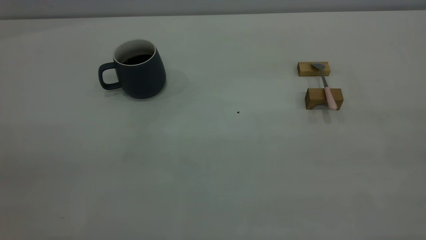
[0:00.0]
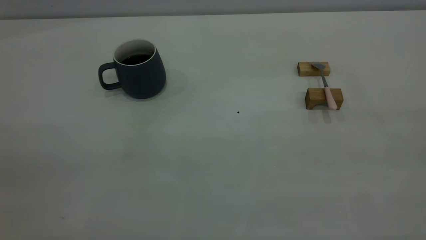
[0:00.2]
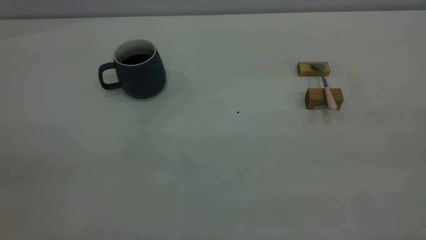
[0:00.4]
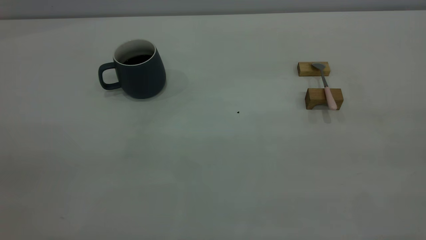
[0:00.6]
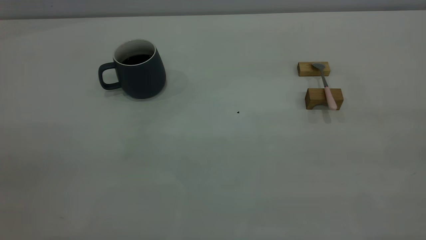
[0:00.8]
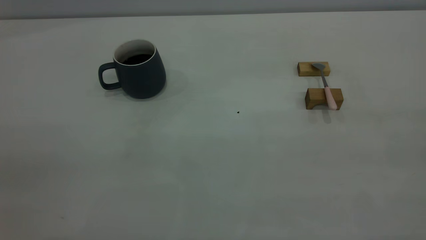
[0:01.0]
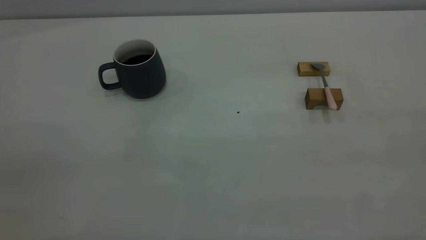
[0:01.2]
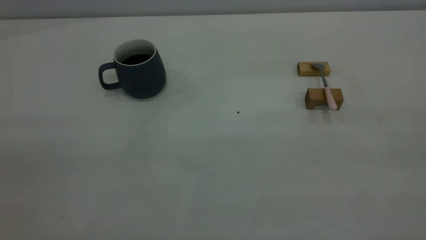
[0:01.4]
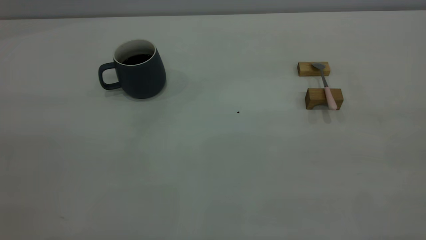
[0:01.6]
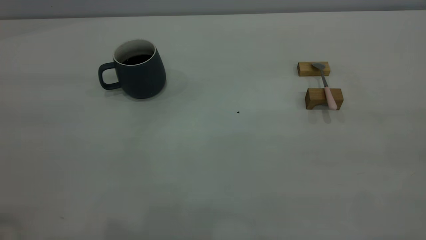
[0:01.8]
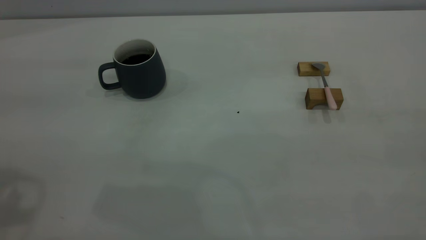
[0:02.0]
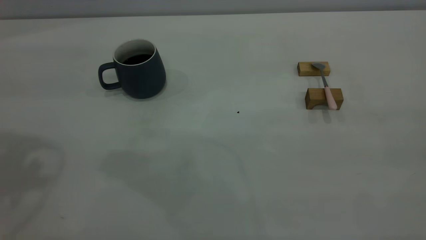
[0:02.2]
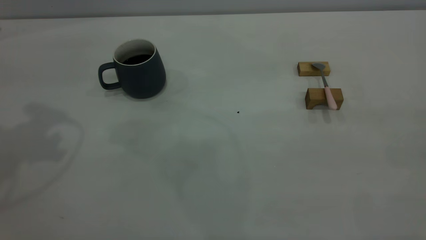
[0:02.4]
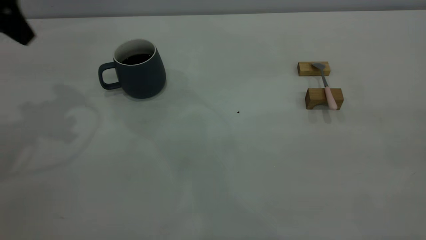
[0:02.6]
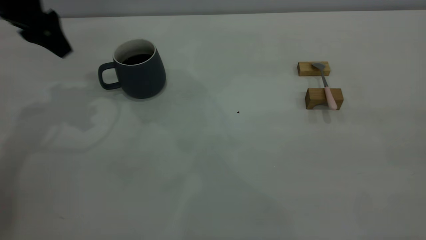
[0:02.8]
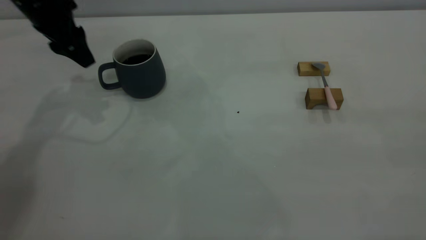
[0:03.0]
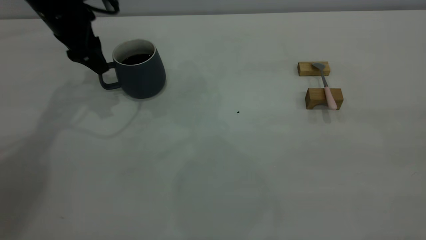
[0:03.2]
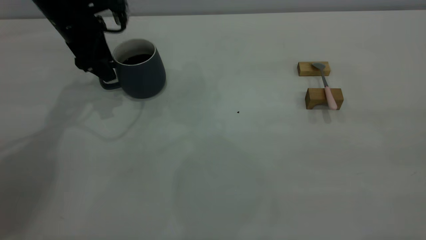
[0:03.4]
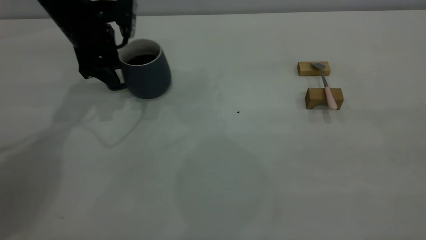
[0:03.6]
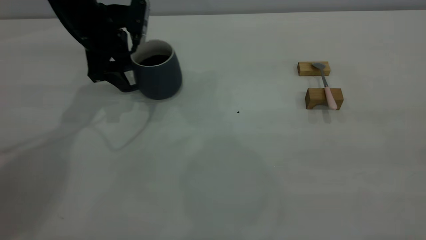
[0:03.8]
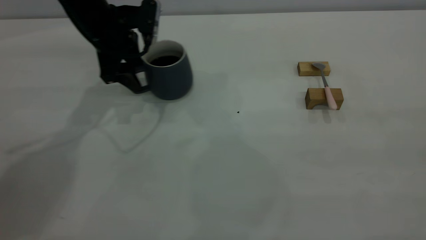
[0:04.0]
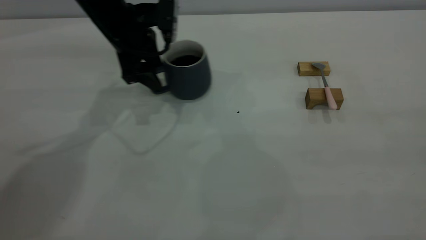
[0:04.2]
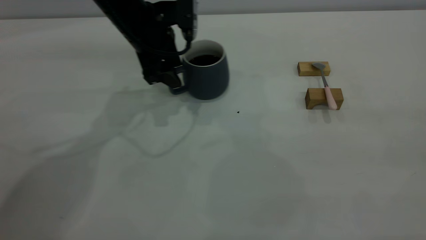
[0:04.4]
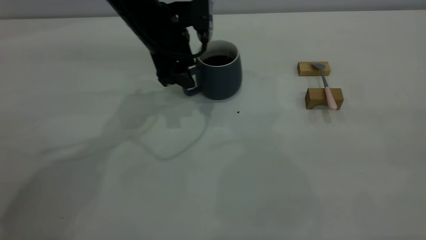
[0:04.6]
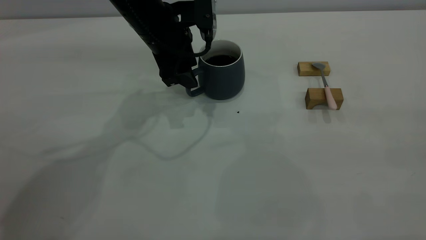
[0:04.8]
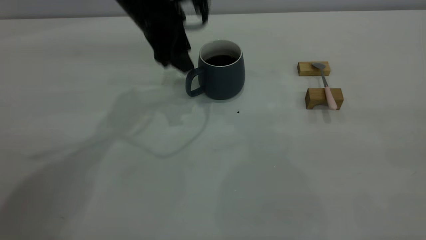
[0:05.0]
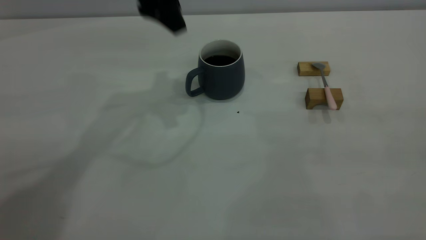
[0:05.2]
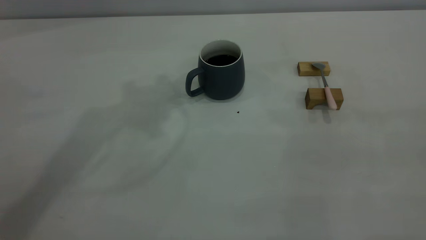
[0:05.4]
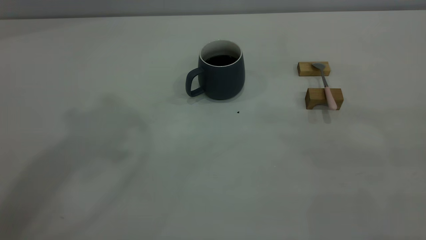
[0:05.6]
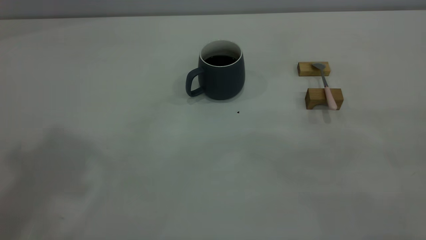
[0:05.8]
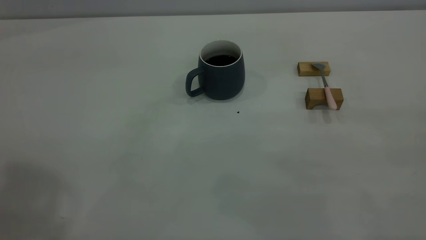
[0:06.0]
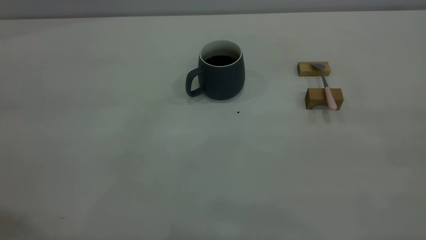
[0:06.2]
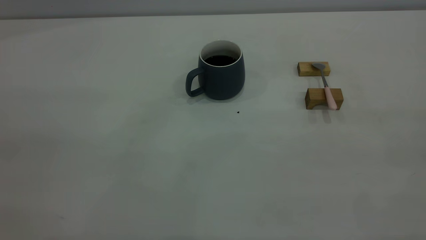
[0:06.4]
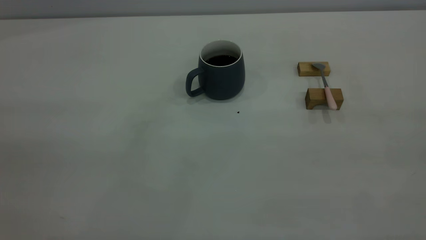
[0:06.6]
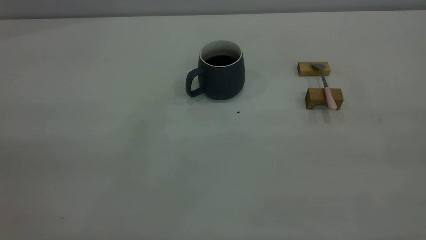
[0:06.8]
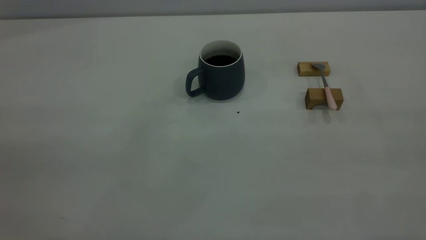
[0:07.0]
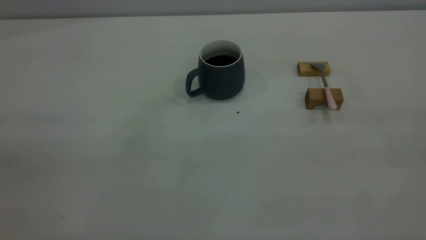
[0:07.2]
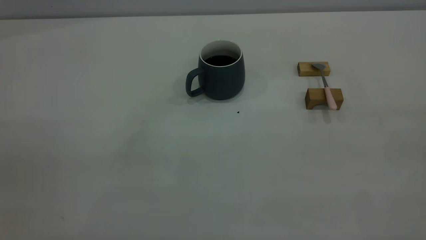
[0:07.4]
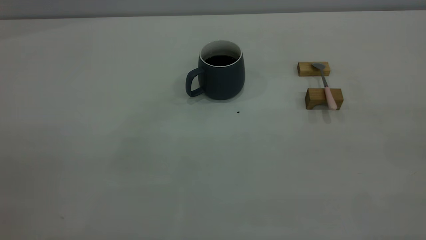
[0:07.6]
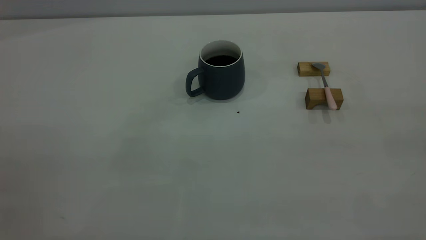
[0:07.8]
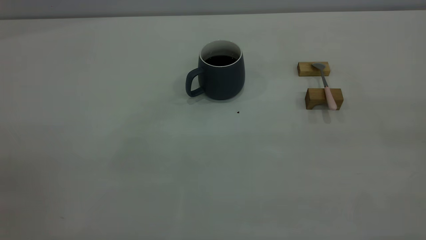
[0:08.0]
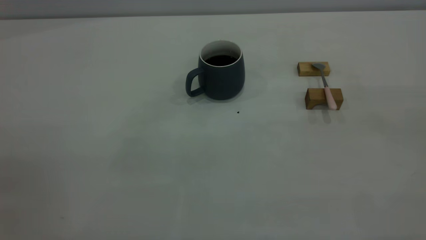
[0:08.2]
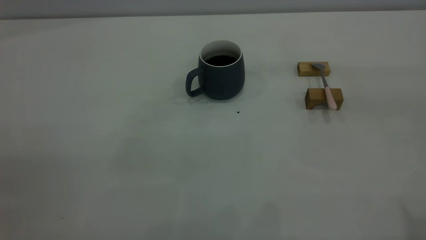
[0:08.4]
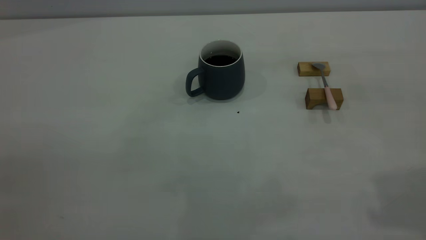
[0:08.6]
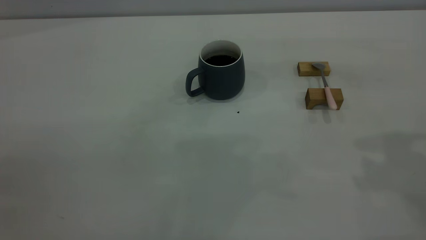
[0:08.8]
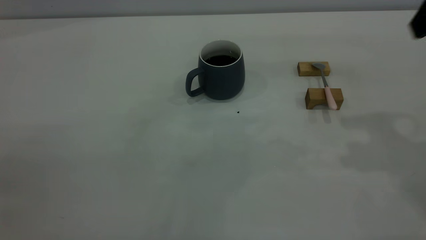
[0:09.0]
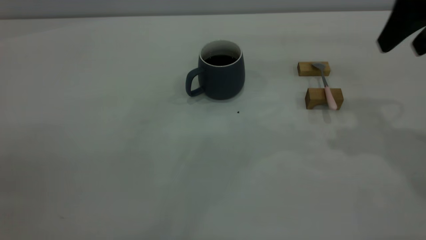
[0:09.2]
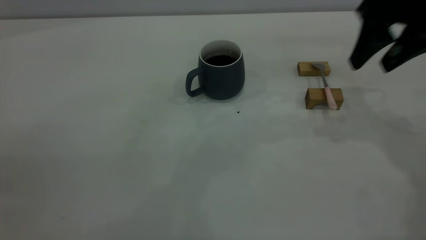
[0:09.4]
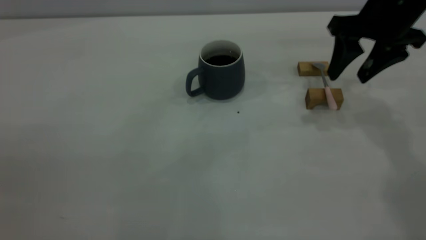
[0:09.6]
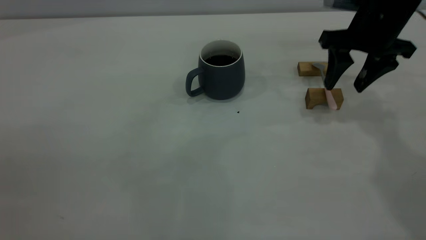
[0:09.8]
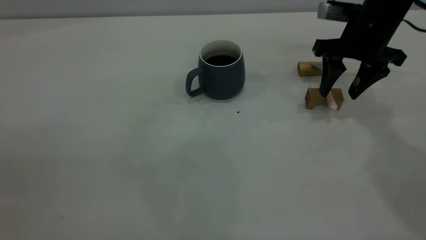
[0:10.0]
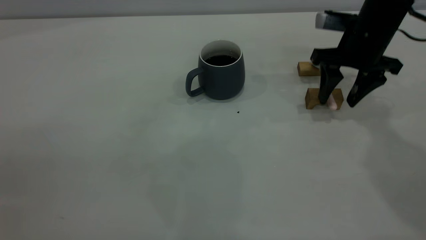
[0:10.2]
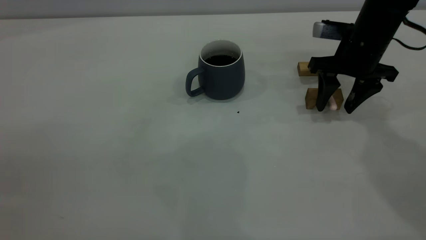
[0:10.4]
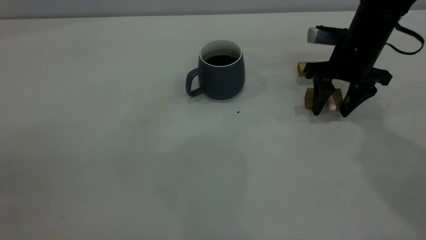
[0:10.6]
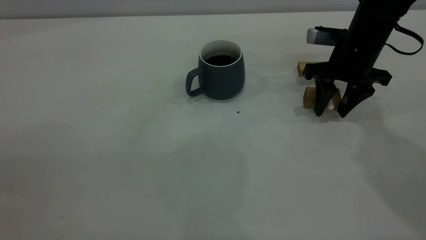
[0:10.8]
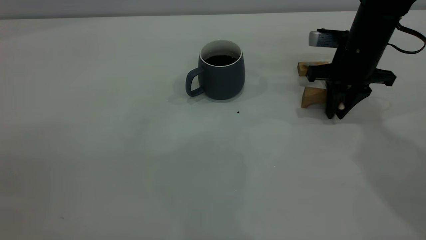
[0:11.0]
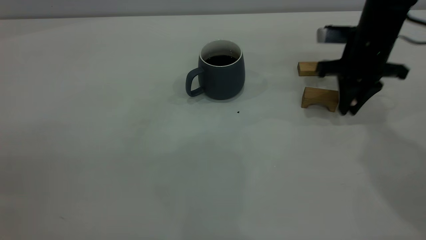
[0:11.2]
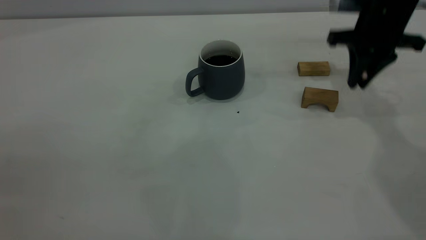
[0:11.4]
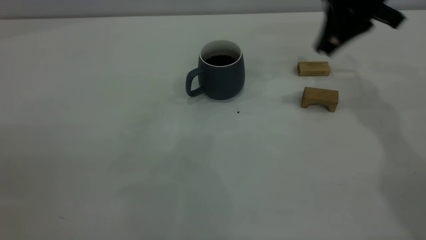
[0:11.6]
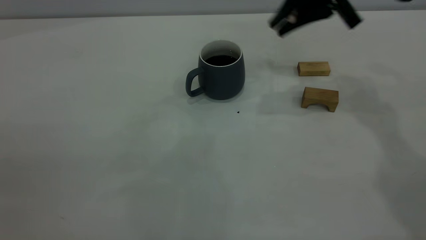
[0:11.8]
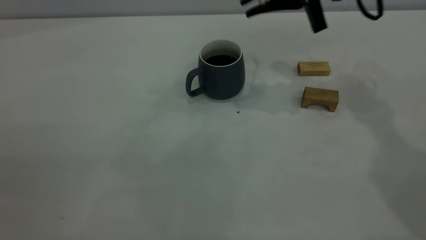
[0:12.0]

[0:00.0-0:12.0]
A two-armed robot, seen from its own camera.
Step, 0:00.0 to 0:05.0: Move the cup with coffee to the center of view.
Step, 0:05.2 to 0:11.4: Pick up the spoon.
0:01.6 to 0:03.0: The left gripper heads forward and downward, covering roughly 40 cm.
0:03.0 to 0:04.4: The left gripper heads to the right, covering some 15 cm.
0:04.4 to 0:06.0: The left gripper travels upward and backward by about 40 cm.
0:09.0 to 0:10.4: The right gripper goes about 25 cm downward and forward.
0:10.4 to 0:12.0: The right gripper is displaced upward and to the left by approximately 15 cm, and closes.

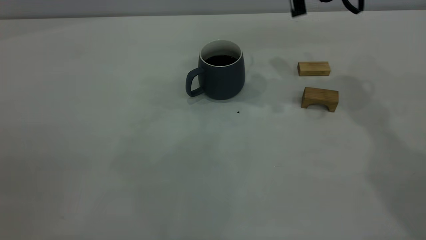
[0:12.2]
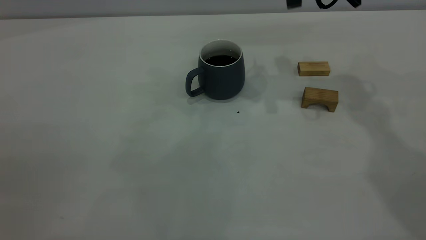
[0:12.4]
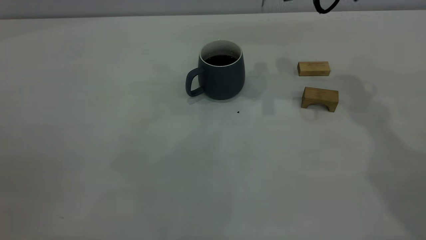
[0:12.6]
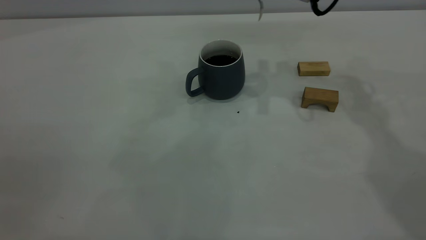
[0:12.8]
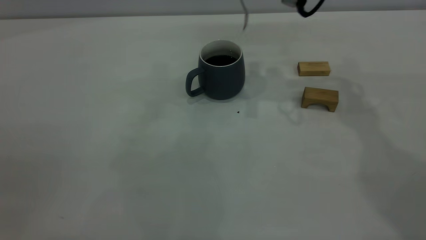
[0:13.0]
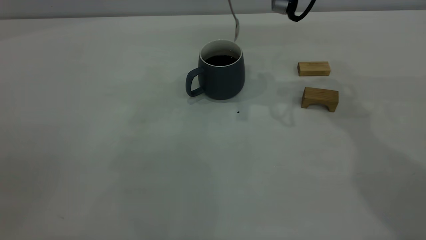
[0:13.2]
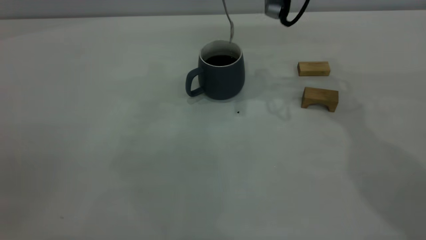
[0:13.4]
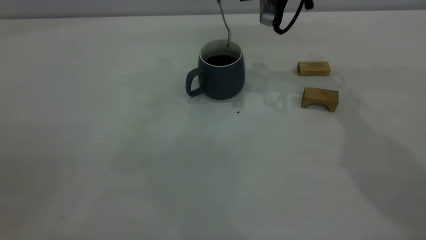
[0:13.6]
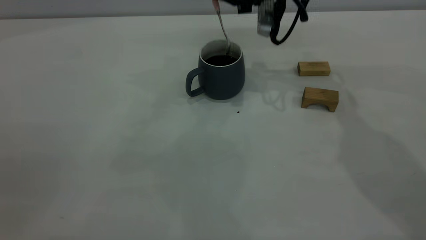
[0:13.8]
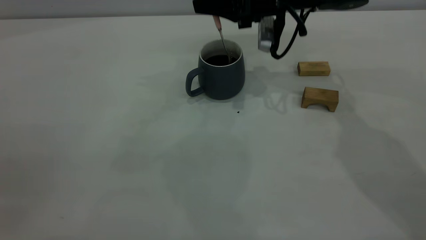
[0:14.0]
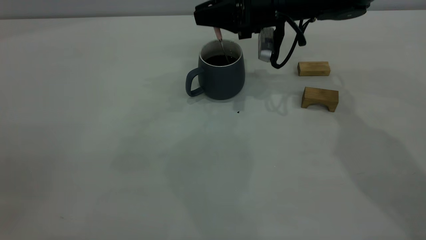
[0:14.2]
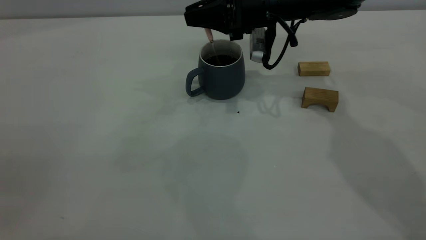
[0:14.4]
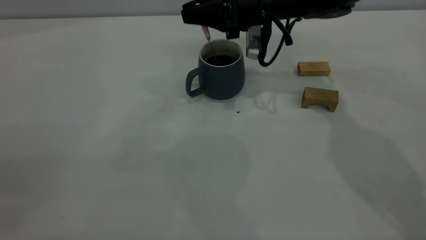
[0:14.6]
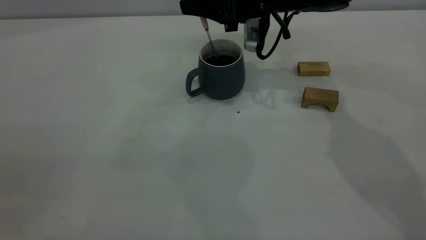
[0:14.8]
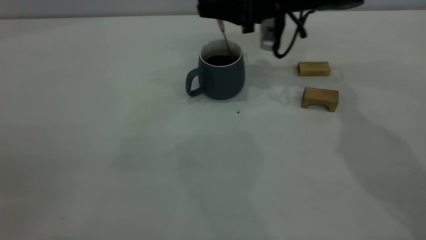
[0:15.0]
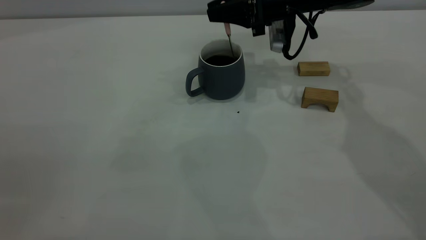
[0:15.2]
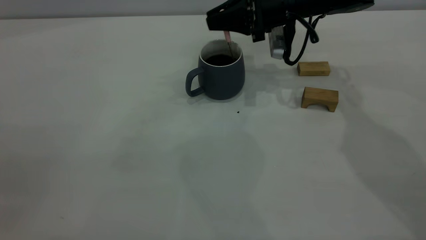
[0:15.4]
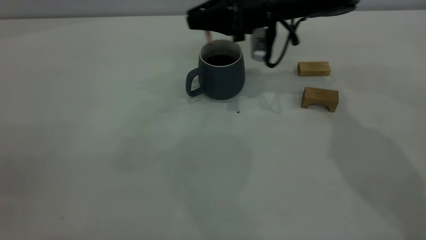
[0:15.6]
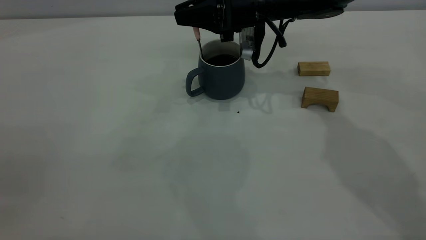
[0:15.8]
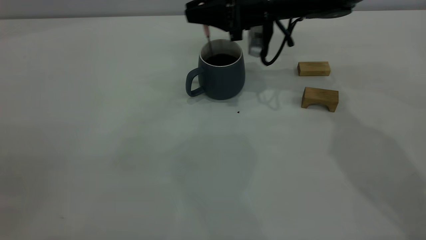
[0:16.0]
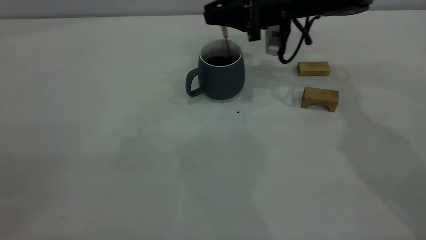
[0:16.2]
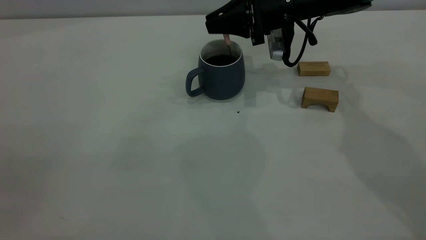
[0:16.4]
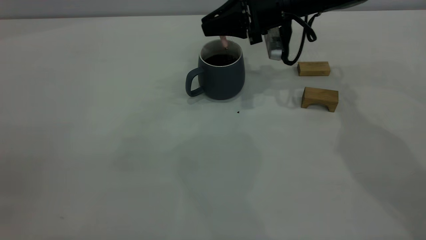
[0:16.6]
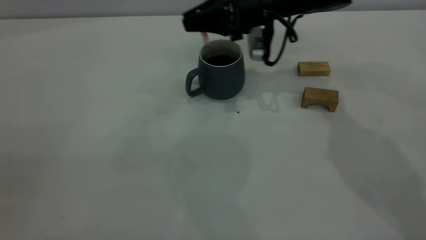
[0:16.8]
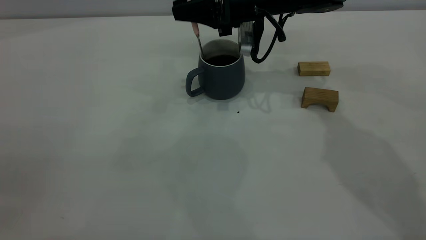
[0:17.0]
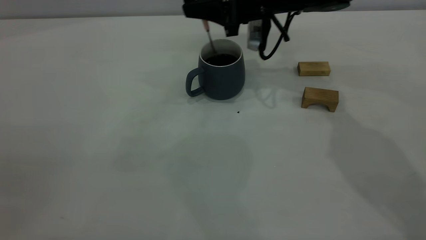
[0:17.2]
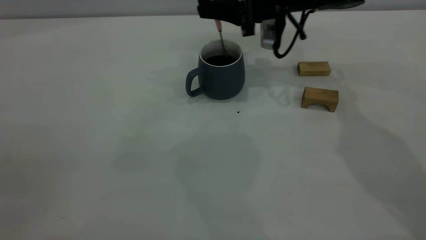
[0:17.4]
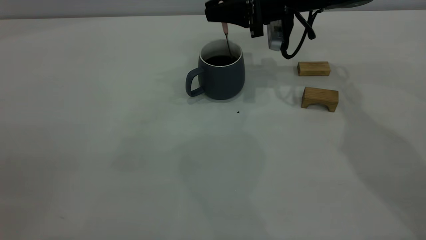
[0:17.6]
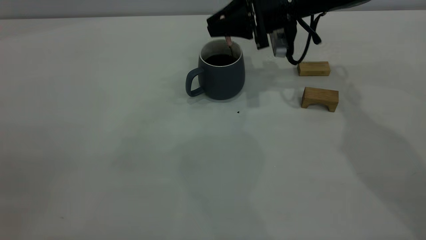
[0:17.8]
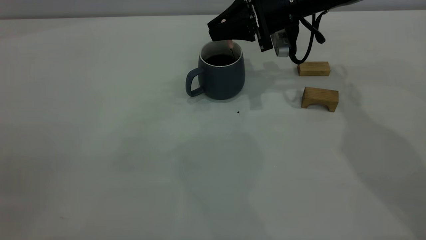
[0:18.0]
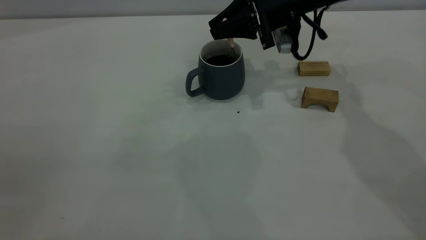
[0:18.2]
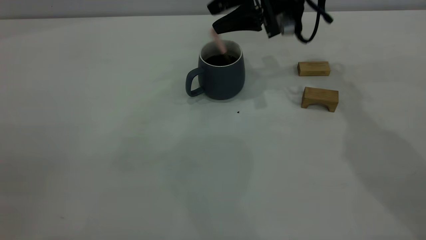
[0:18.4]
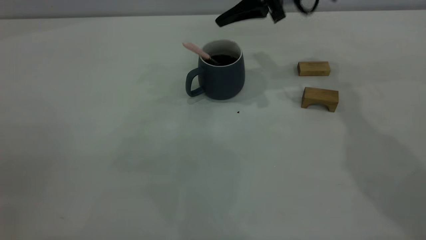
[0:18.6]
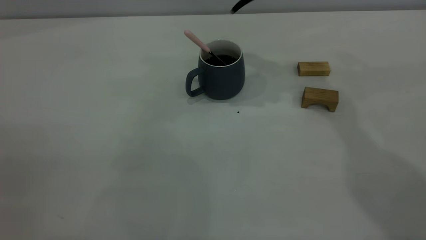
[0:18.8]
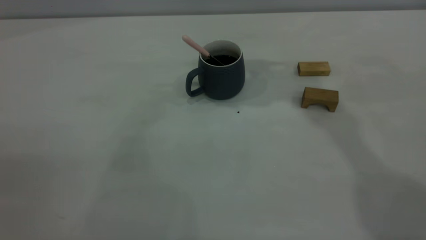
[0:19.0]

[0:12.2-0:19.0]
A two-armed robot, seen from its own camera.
Step, 0:12.2 to 0:18.4: Stir the coffee in the cup.
0:12.2 to 0:13.6: The right gripper changes place by about 5 cm.
0:13.6 to 0:15.0: The right gripper goes roughly 5 cm downward.
0:15.0 to 0:17.6: The grippers stay close to where they were, moving slightly.
0:17.6 to 0:19.0: The right gripper travels upward by roughly 25 cm, and opens.
